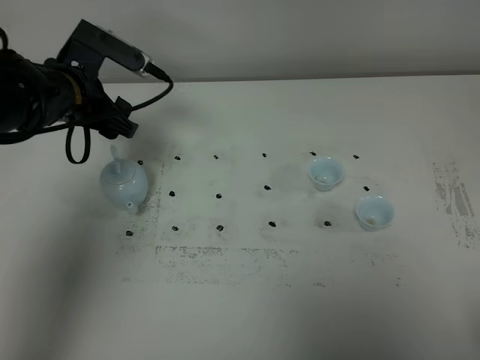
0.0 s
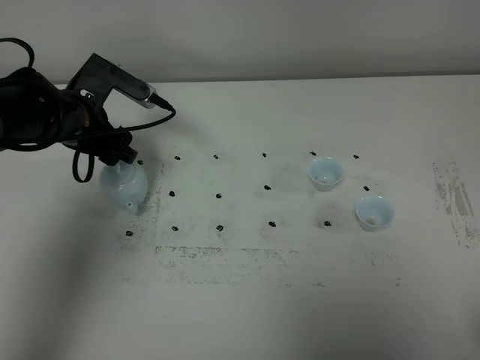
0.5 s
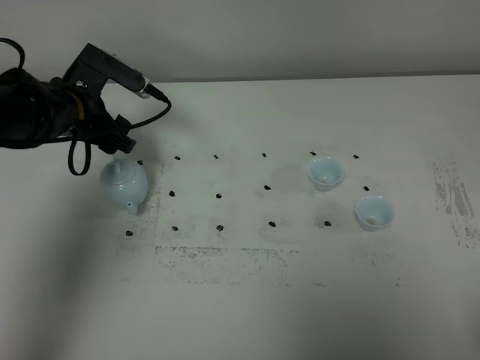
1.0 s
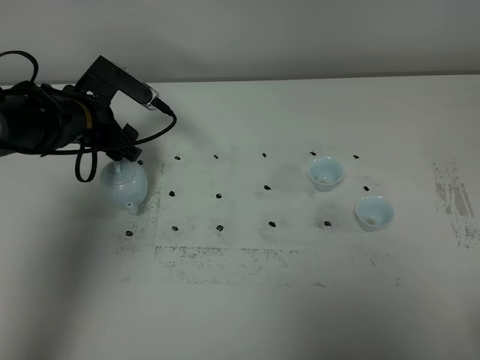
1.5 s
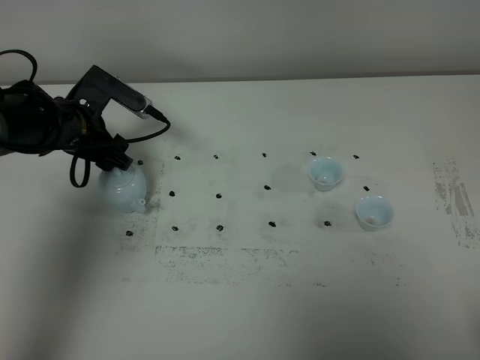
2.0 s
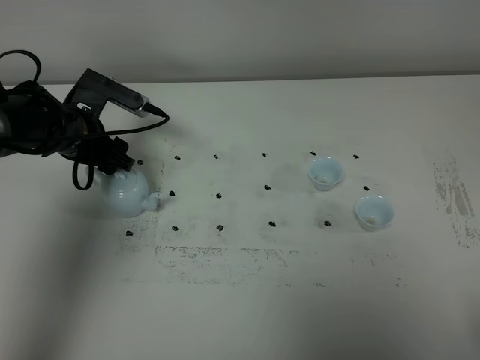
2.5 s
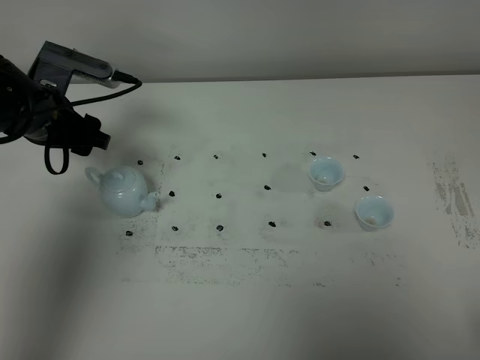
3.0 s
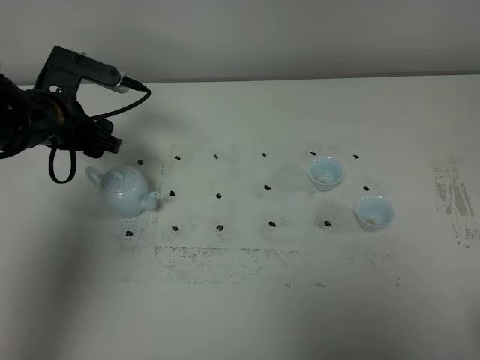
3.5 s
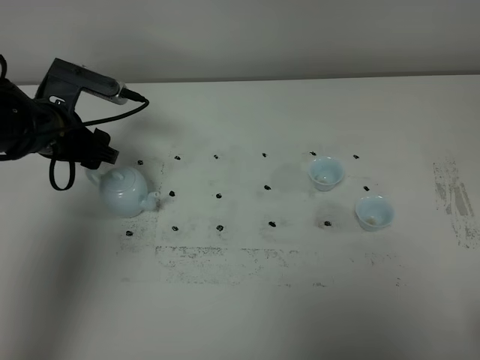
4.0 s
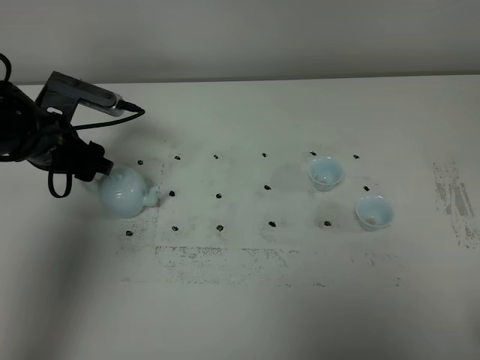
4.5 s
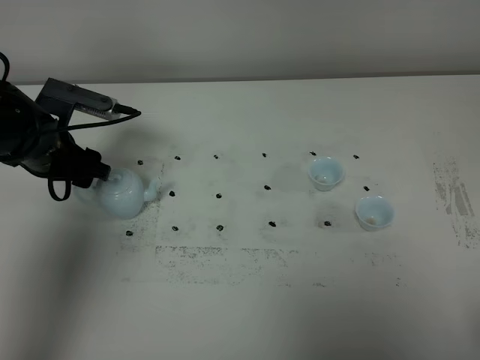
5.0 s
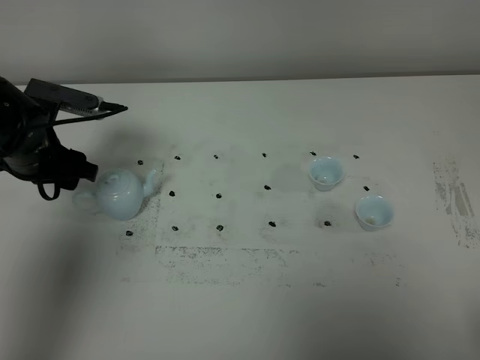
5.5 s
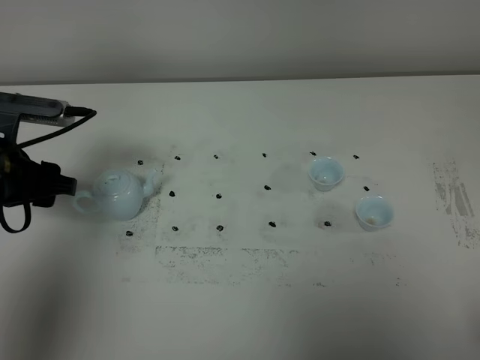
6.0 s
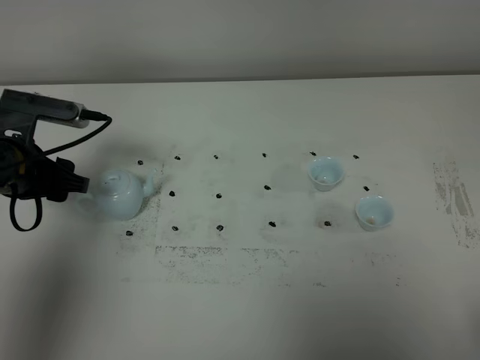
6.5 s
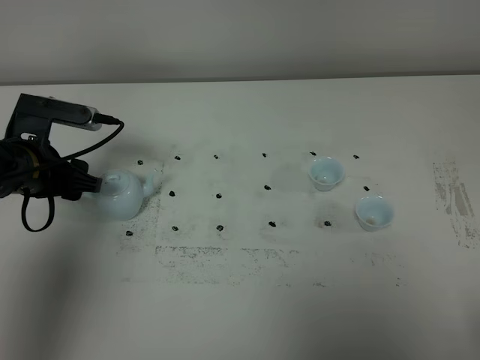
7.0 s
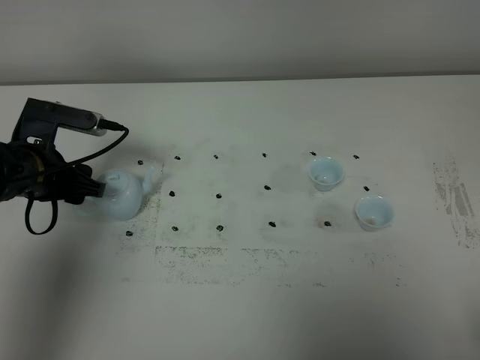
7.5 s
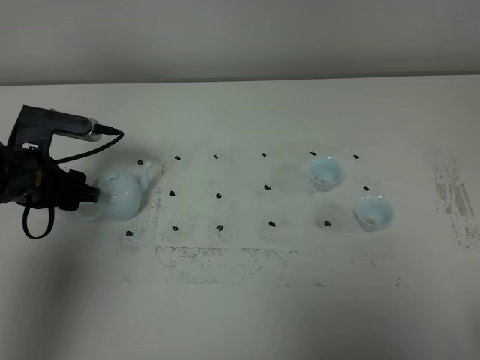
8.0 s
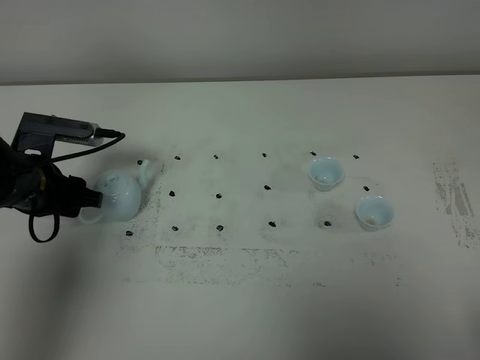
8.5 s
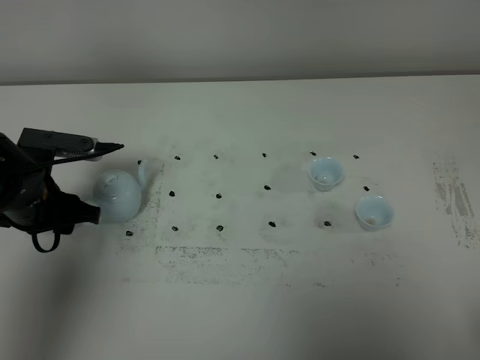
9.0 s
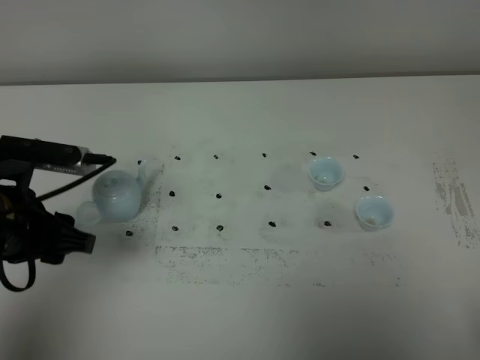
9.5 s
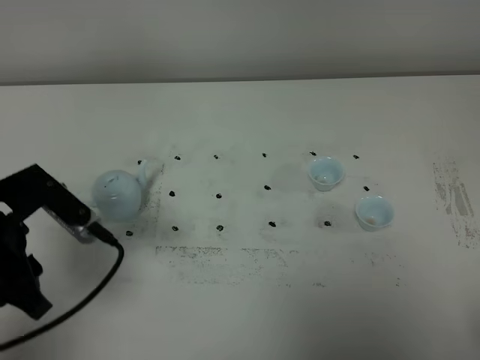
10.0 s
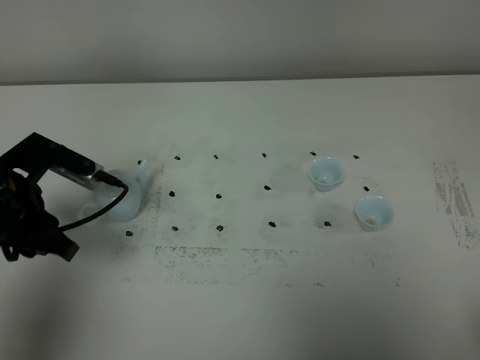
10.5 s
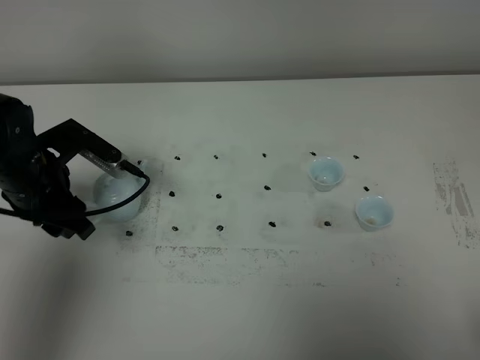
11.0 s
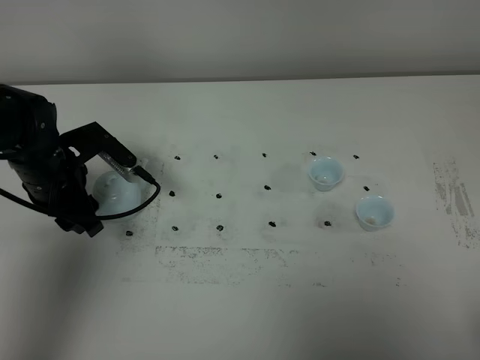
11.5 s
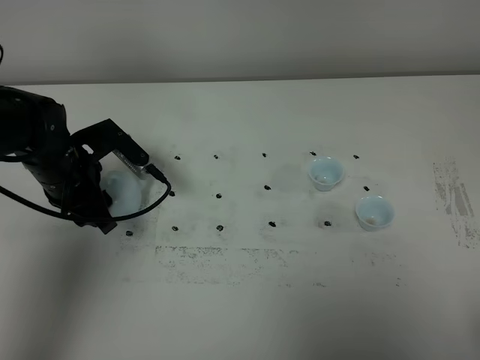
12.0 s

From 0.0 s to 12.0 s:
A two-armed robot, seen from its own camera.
Task of the whole recording: grasp the blue porcelain teapot and pour the tea into the two blue porcelain teacups one by one, put the blue porcelain teapot back in its original place.
From 0.0 s to 2.0 s: The left gripper moves downward, some 5 cm.
From 2.0 s to 4.0 s: There are only small adjustments of the grippers.
From 4.0 s to 6.0 s: The left gripper moves backward, about 10 cm.
From 6.0 s to 8.0 s: The left gripper heads downward, covering some 5 cm.
From 8.0 s to 10.0 s: The left gripper travels backward and upward by some 15 cm, and closes.
From 10.0 s to 12.0 s: The left gripper shifts about 15 cm forward and downward.

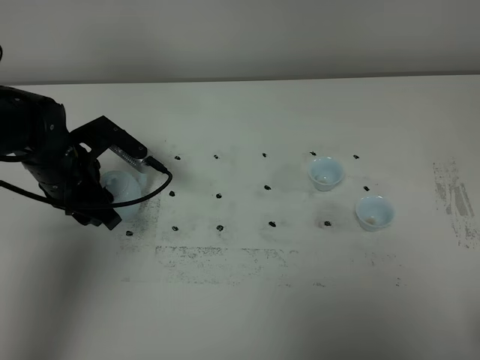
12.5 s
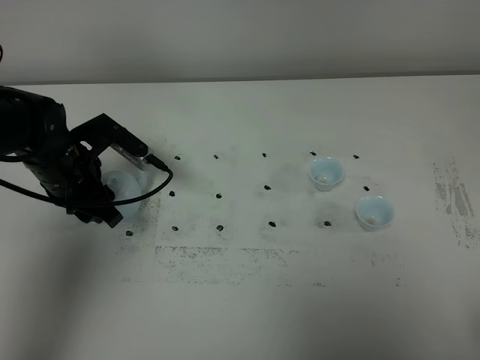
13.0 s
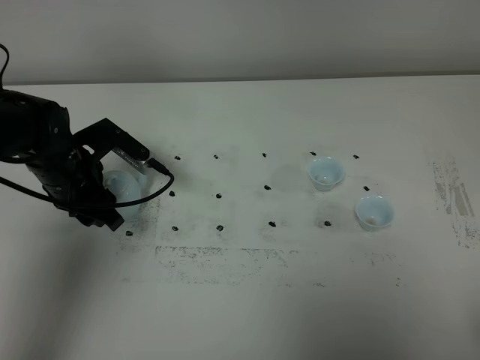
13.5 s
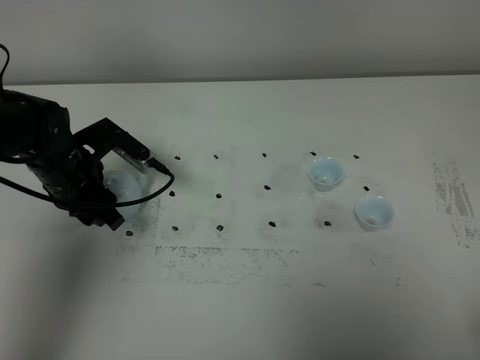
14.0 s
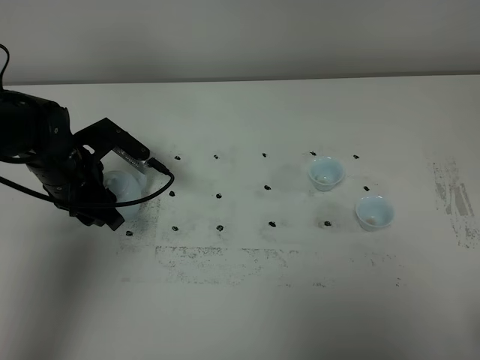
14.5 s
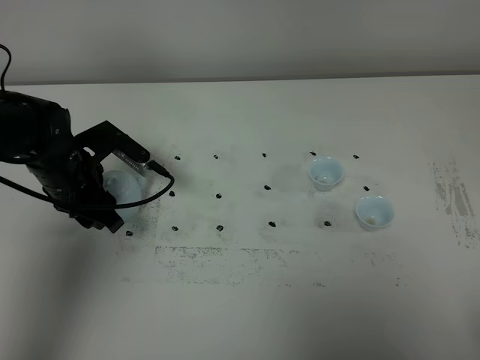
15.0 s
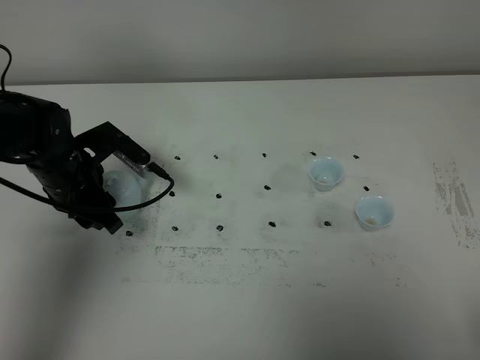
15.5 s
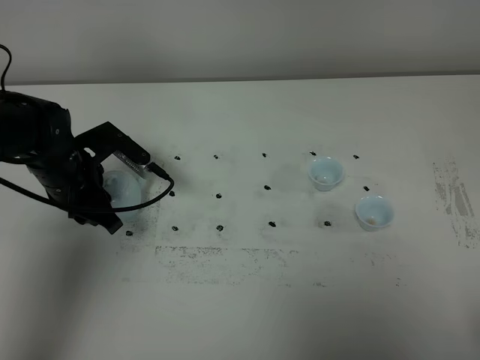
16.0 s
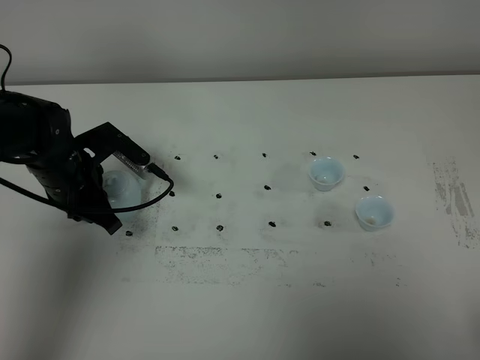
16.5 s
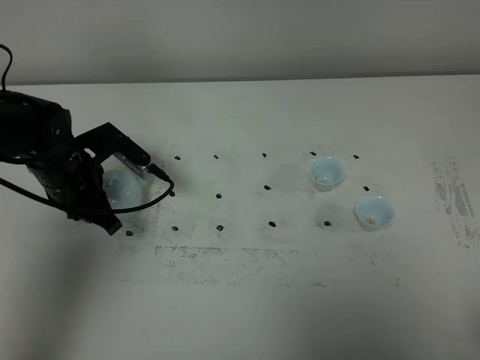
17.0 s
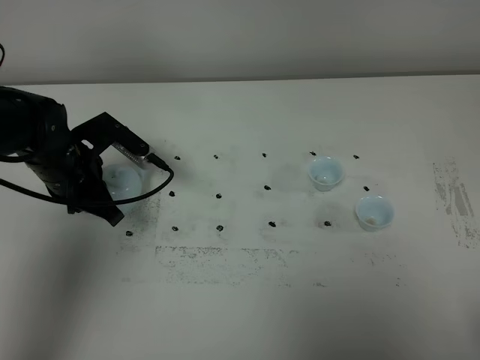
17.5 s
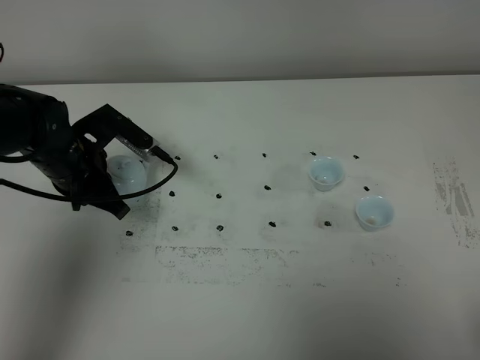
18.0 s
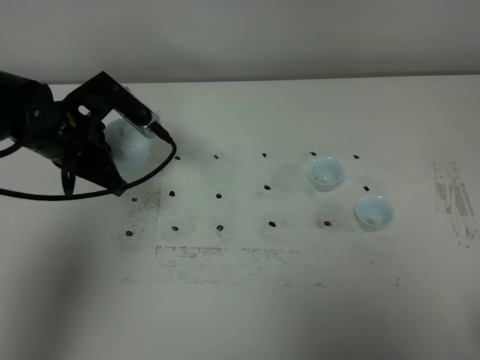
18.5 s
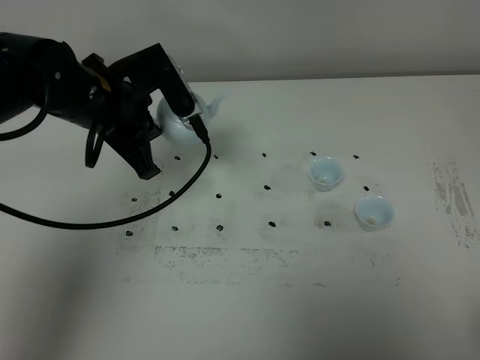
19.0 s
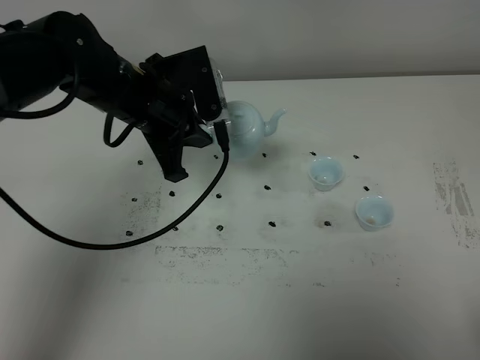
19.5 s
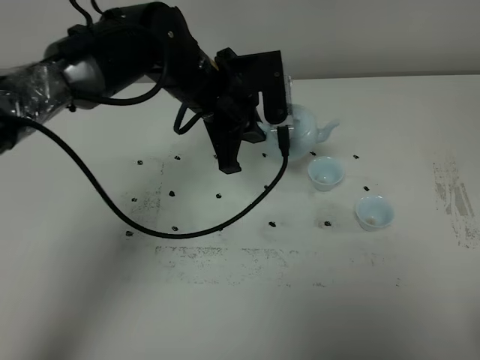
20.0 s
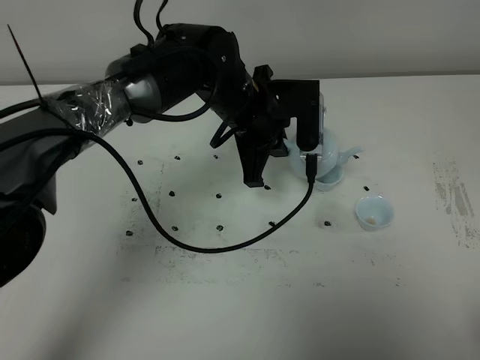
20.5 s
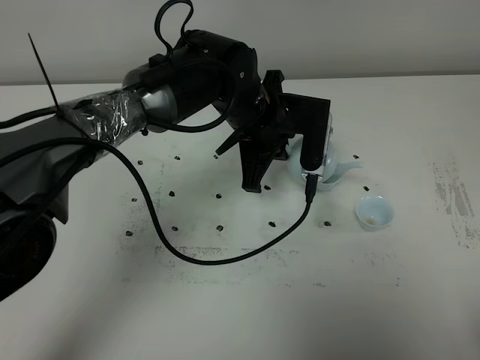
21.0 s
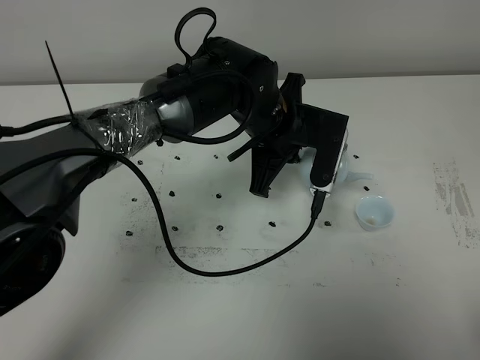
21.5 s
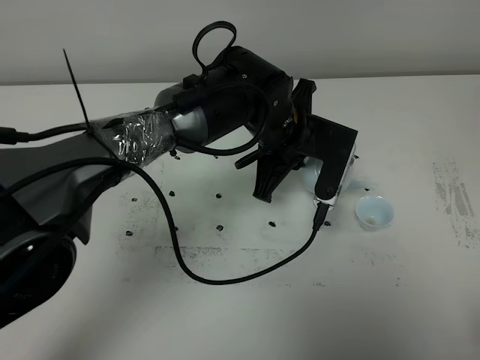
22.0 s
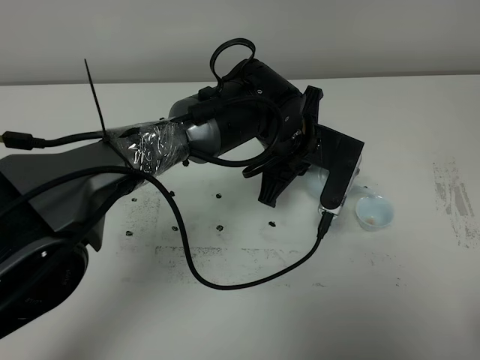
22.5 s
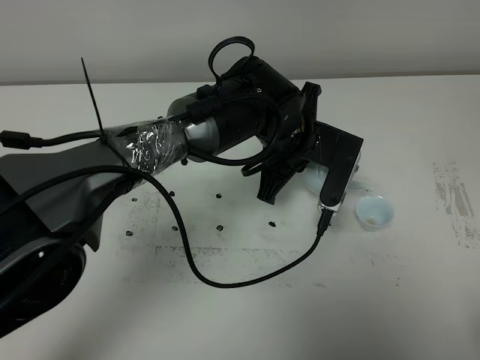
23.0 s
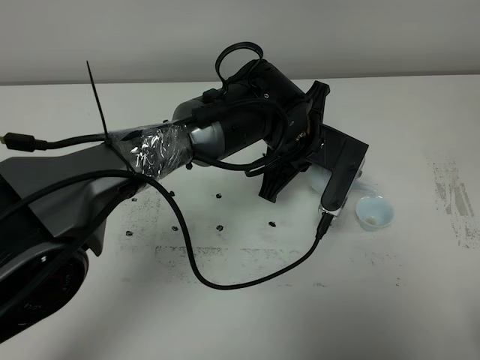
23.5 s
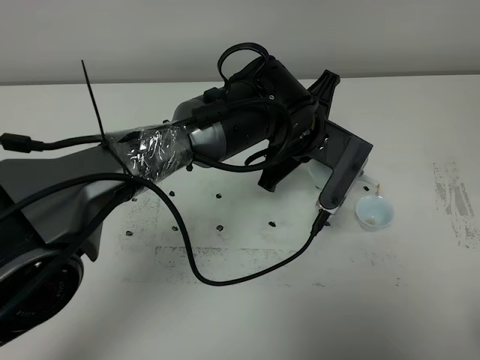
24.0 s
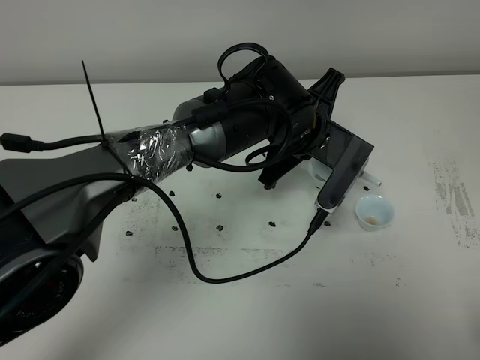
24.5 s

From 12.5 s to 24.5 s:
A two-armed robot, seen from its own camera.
Task of the whole recording: grasp the blue porcelain teapot and pour the tea into the two blue porcelain teacups one by one, put the blue porcelain teapot back in its original place.
Step, from 12.5 s to 18.0 s: Pick up the teapot with the left gripper.
From 12.5 s to 14.5 s: Both grippers stay about where they are.
From 14.5 s to 16.5 s: The left gripper closes.
From 16.5 s to 18.5 s: The left gripper is displaced upward by roughly 5 cm.
From 18.5 s to 20.5 s: The left gripper heads to the right, covering approximately 20 cm.
From 20.5 s to 22.5 s: The left gripper moves to the right, some 5 cm.
From 22.5 s to 24.5 s: The grippers move only a little.

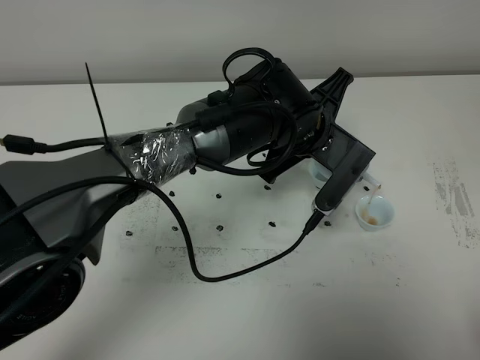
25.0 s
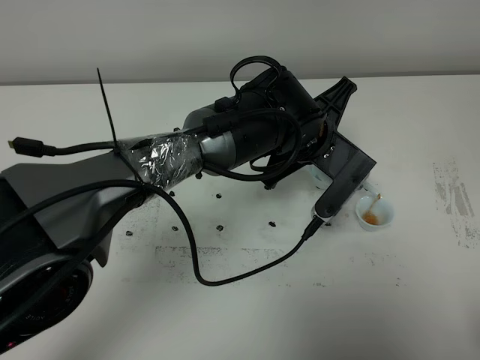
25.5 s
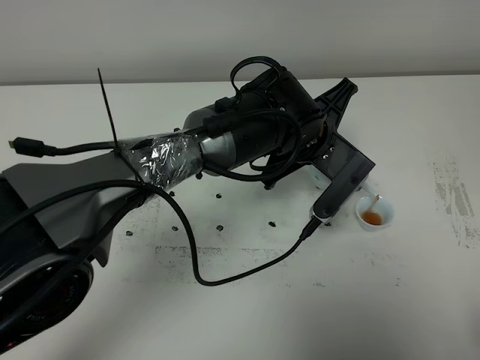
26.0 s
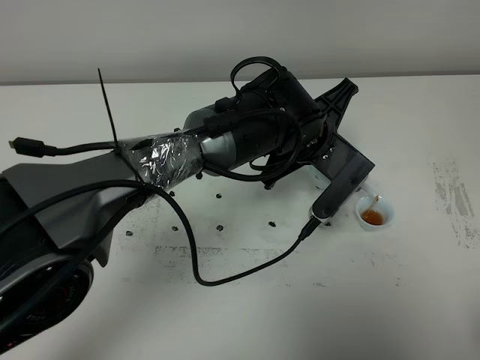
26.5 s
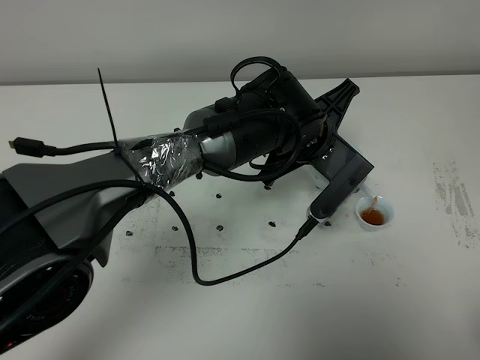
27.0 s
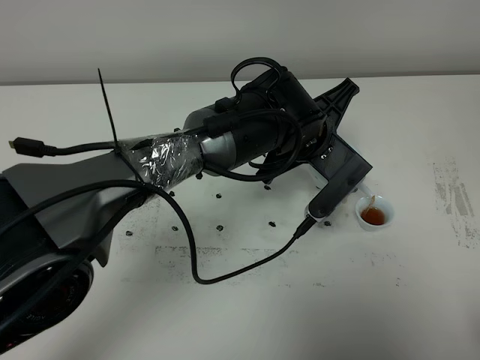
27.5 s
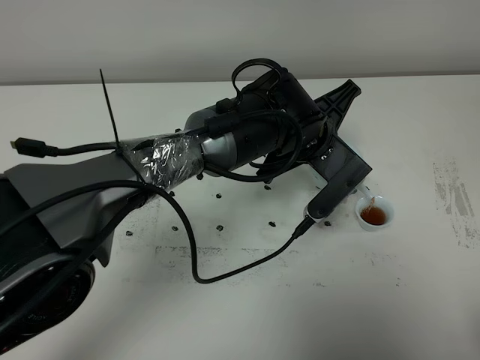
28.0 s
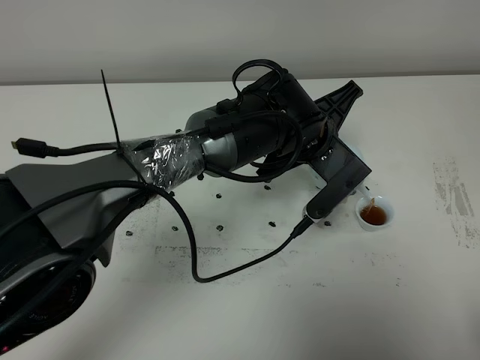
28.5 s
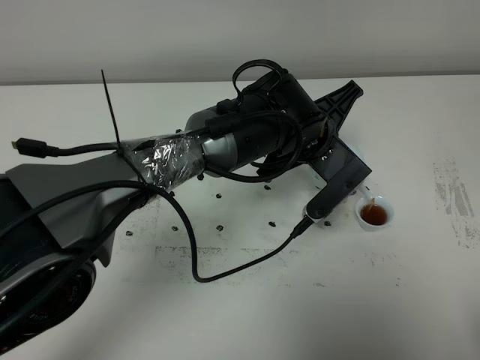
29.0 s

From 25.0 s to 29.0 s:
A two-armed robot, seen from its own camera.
Task of the whole recording: grasp the blue porcelain teapot and pour the tea into the two blue porcelain teacups one by one, put the blue porcelain teapot back in its original place.
From 25.0 s to 27.0 s: The grippers stay close to where they were, moving slightly.
From 27.0 s to 29.0 s: Neither gripper changes place.
